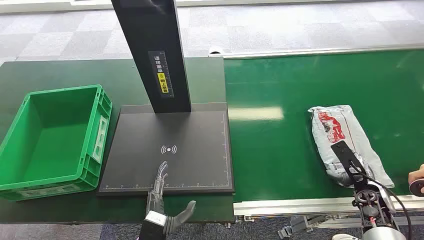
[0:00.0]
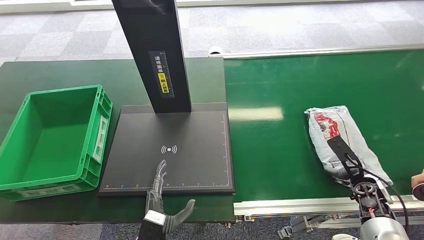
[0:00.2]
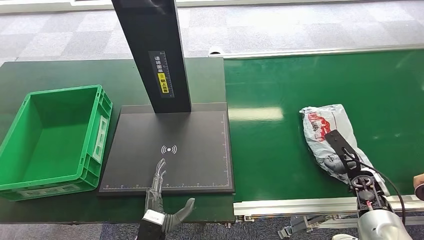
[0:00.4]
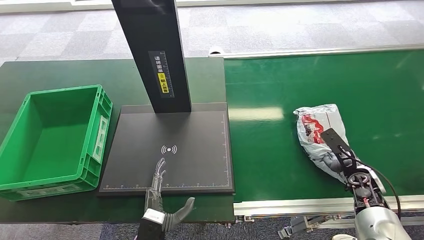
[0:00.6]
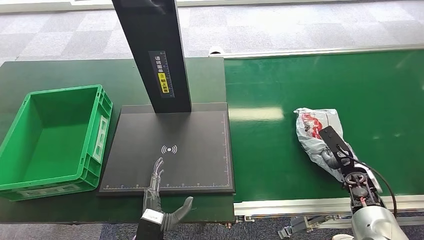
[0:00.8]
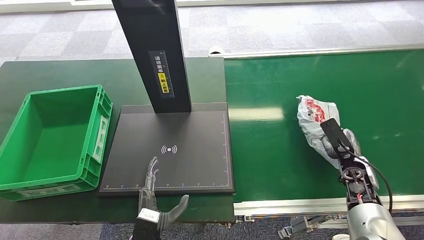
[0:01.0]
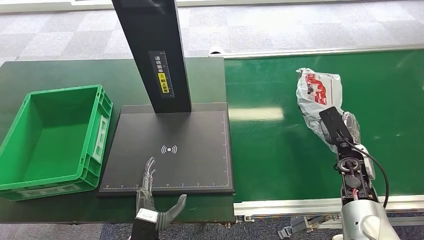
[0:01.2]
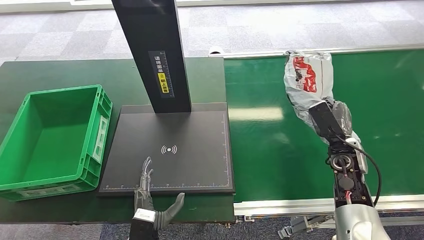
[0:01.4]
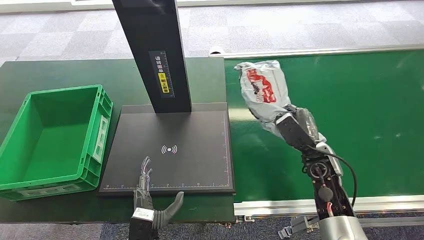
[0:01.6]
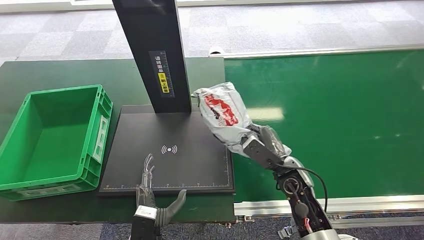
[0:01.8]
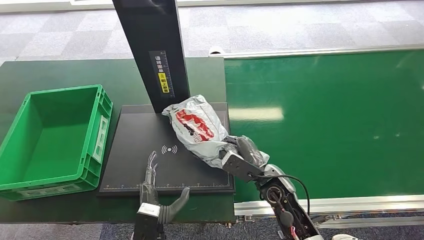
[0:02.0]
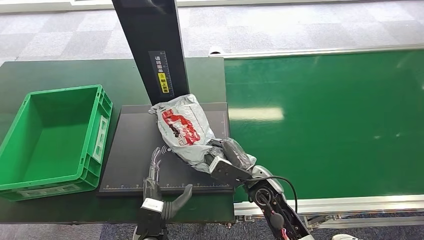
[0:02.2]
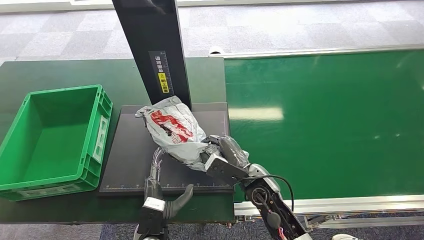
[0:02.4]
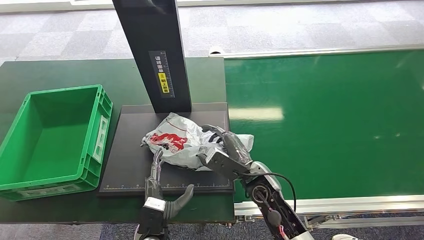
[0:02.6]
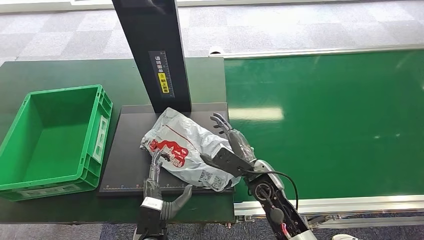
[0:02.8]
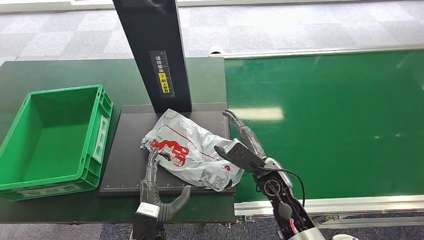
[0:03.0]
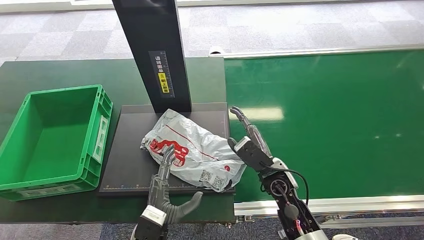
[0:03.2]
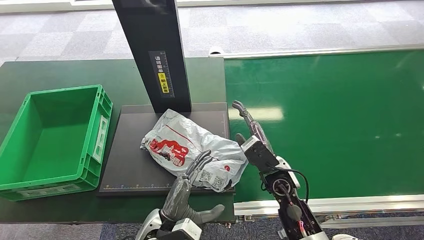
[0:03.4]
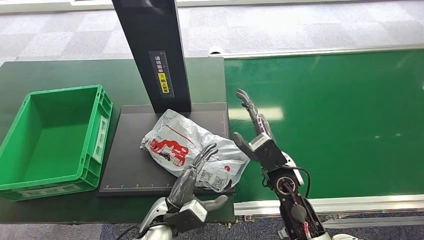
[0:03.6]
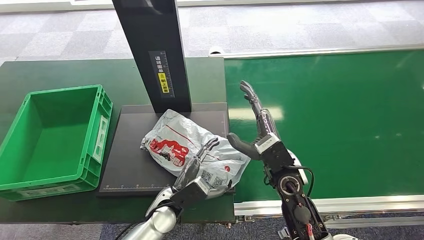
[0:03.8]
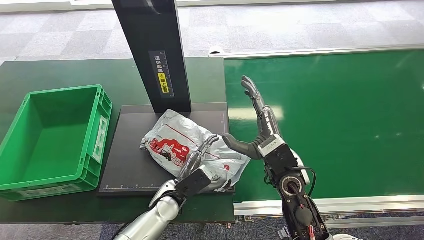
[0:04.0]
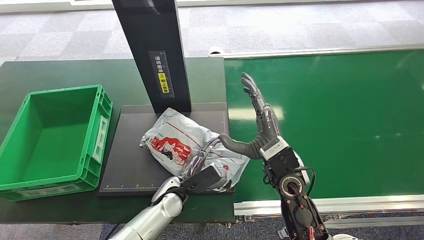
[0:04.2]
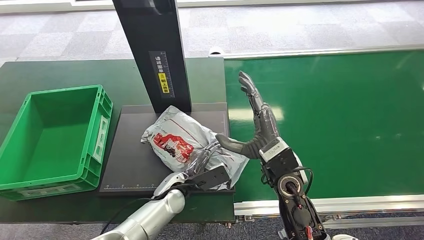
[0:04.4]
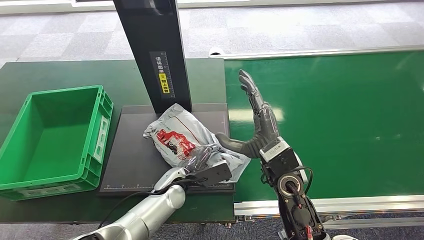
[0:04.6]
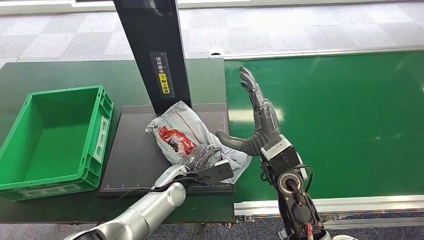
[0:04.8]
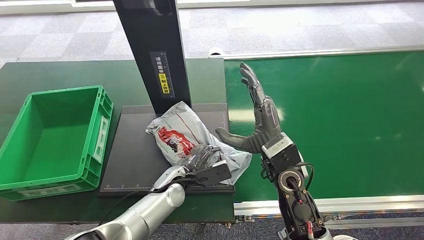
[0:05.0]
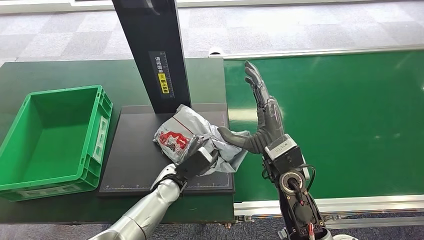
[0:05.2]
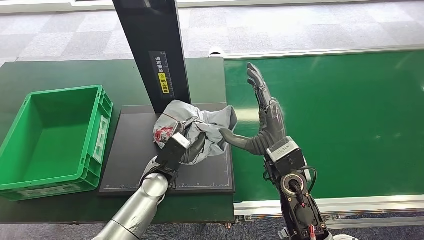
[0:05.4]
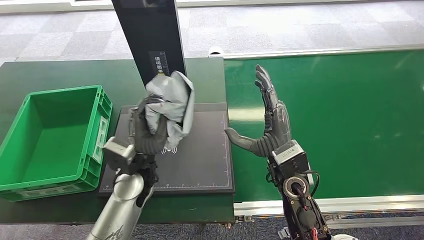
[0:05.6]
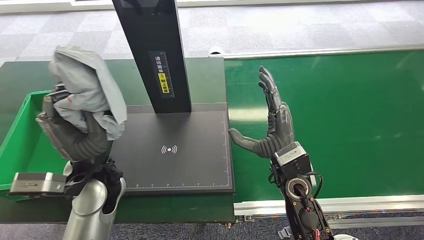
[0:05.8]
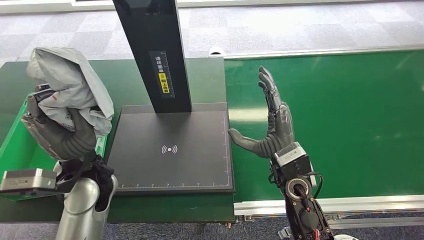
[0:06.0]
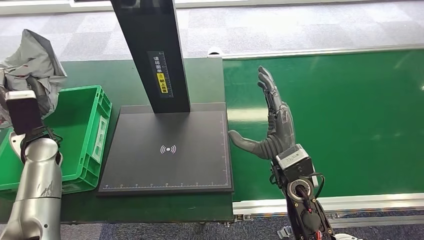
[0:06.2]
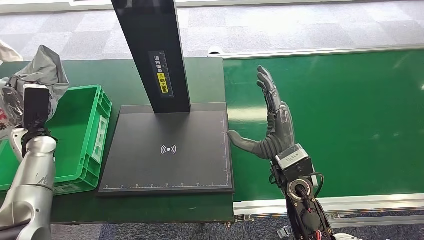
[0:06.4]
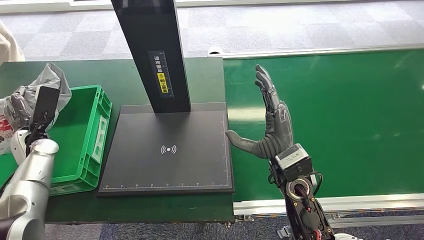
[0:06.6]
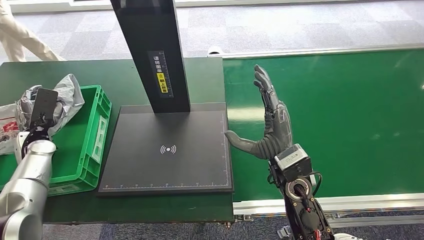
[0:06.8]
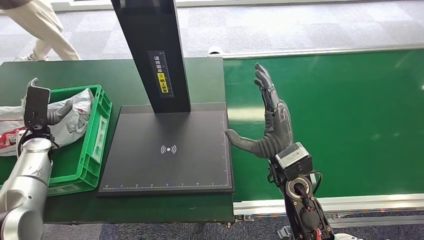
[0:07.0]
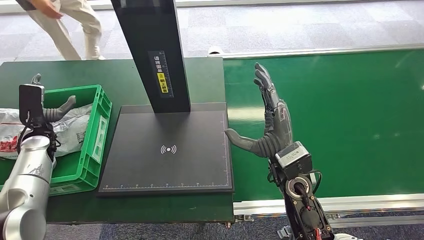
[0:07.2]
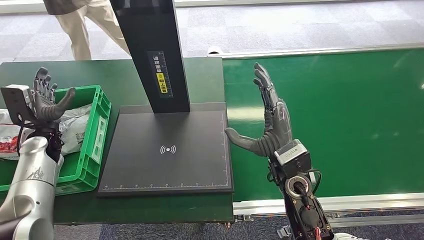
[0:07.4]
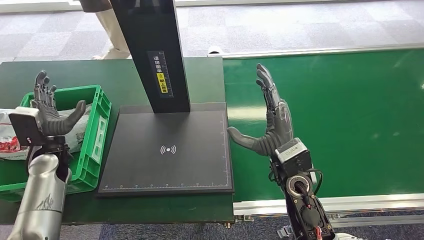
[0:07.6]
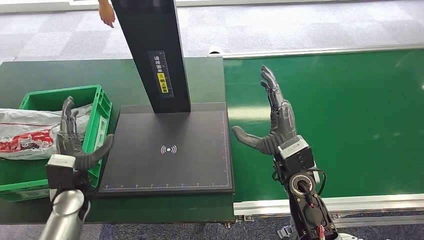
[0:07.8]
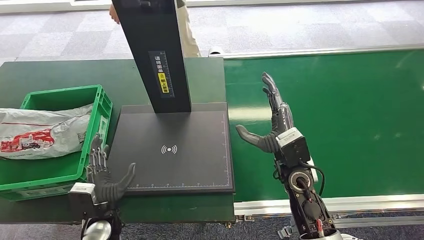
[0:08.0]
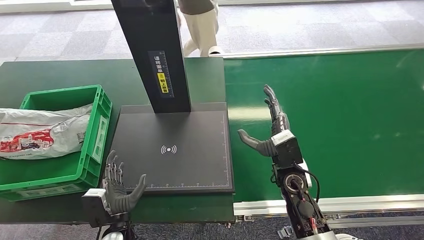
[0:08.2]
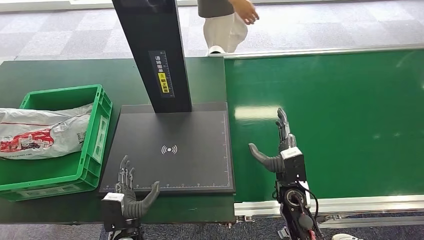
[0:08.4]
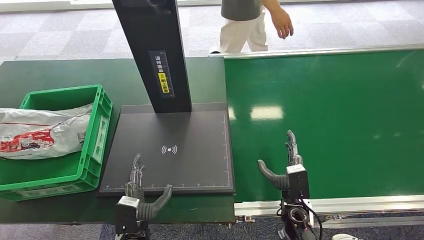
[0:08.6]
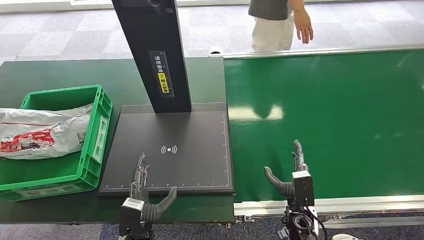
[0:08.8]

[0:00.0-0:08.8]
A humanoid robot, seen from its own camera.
Step, 0:00.0 to 0:01.0: Pick up the package from the conveyor belt.
Step, 0:01.6 to 0:03.6: Place the package onto the inbound machine.
Step, 0:04.2 to 0:06.0: Pick up the package from the inbound machine.
Step, 0:07.0 to 0:08.6: Place the package into the parcel locker.
0:01.4 to 0:03.0: The right hand travels to the left by some 20 cm.
0:03.0 to 0:04.4: The right hand heads upward, covering some 10 cm; the left hand shifts approximately 15 cm forward.
